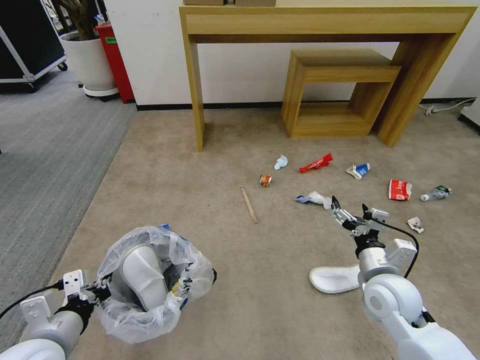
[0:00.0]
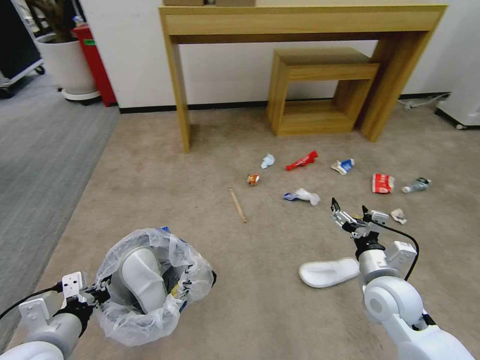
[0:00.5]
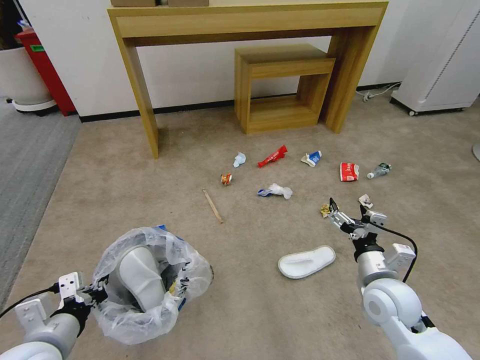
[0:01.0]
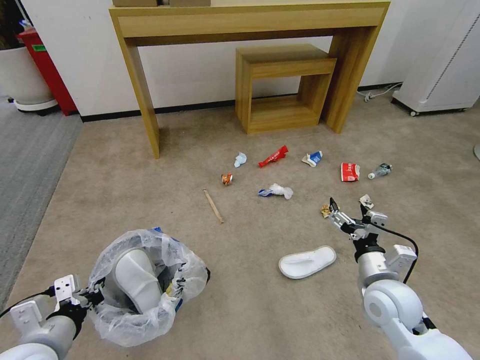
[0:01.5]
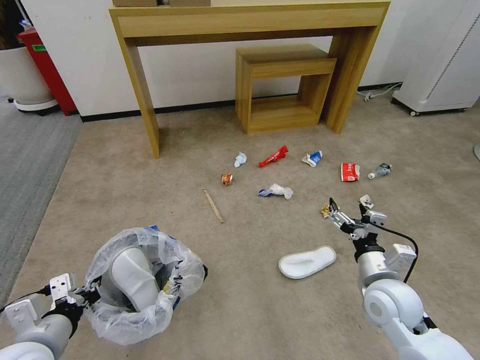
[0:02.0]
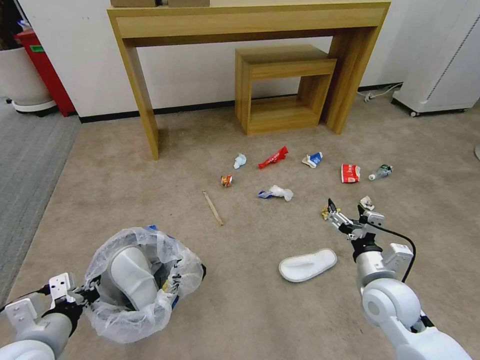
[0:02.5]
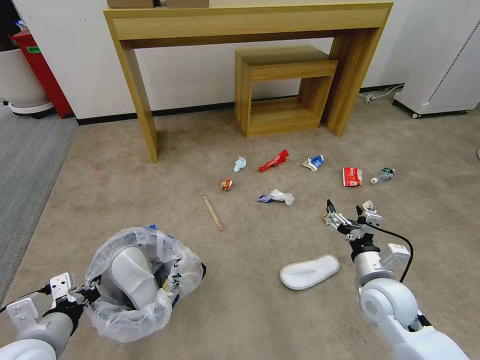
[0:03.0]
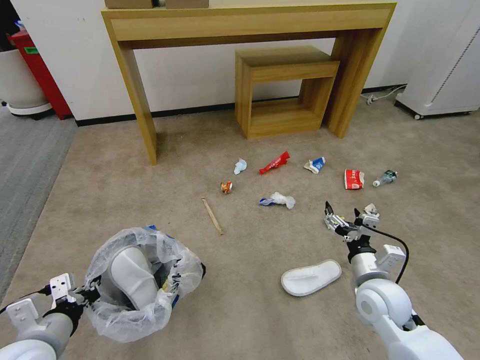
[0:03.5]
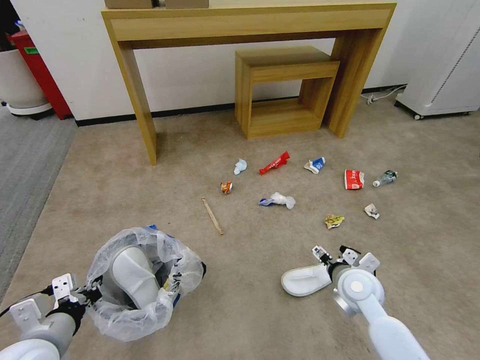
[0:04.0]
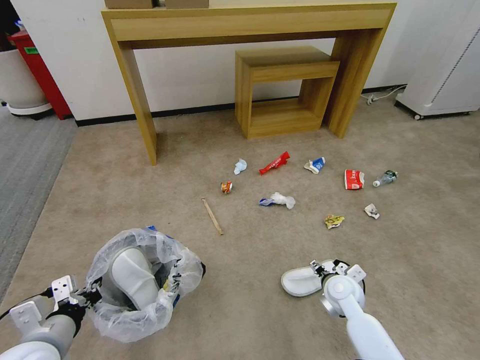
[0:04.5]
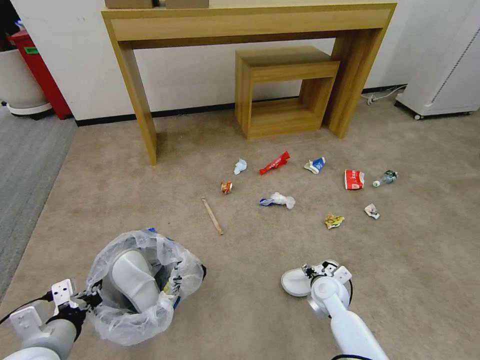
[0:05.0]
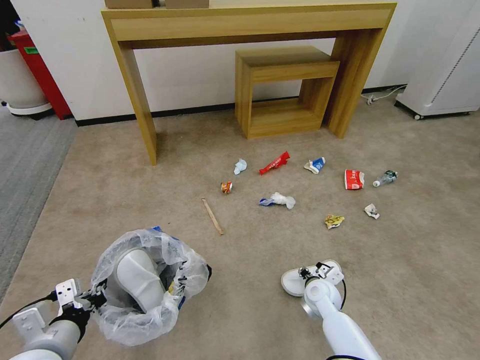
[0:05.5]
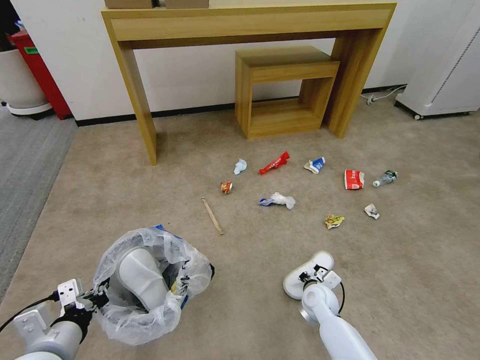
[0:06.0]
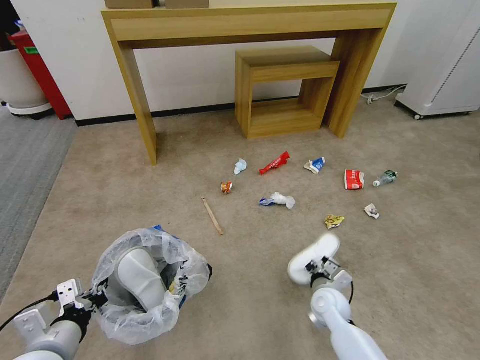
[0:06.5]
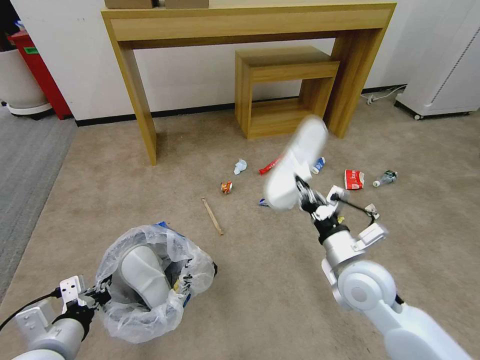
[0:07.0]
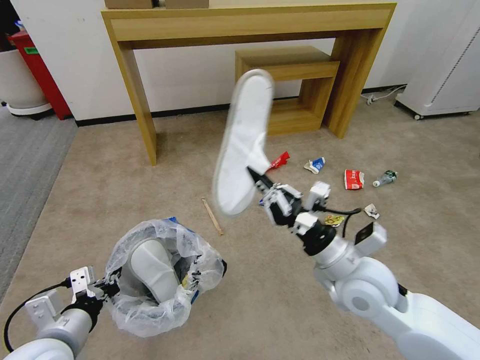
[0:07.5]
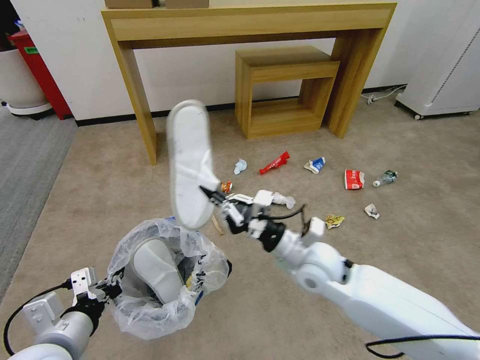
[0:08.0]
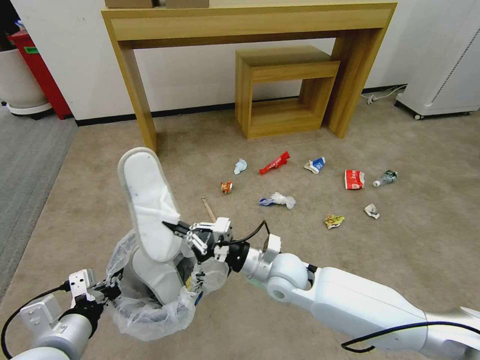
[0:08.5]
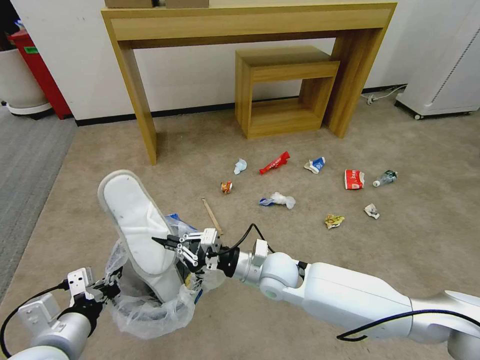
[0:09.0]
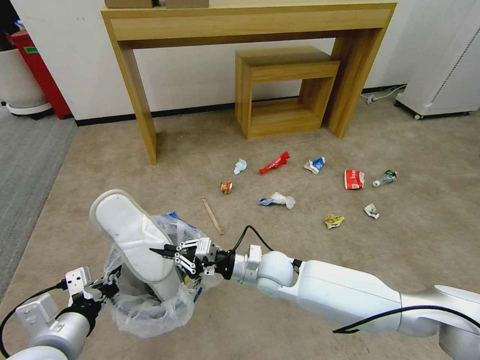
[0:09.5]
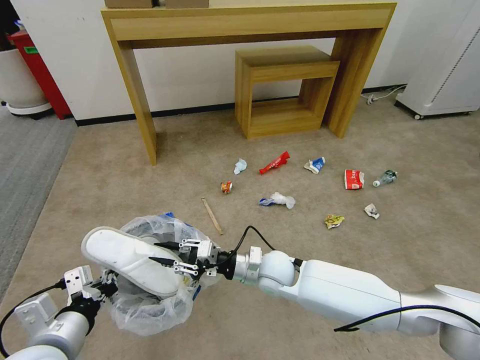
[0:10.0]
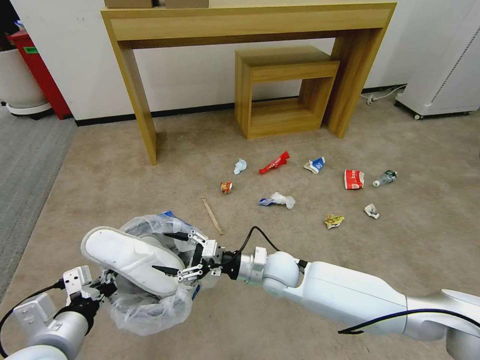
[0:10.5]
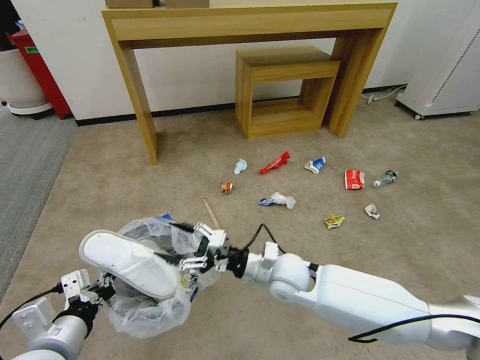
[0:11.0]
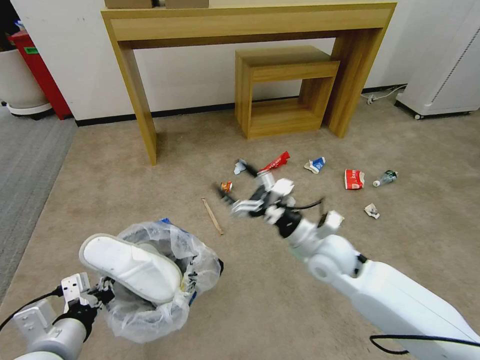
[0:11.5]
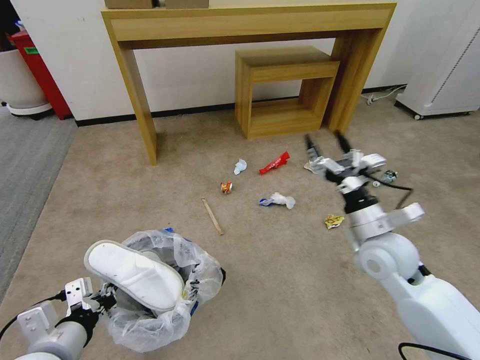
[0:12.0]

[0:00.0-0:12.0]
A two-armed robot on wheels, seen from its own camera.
Task of the whole recording: Pick up the trash bin and place the garbage on the floor into it.
0:02.0 to 0:04.0: The right gripper ends up some 5 cm from where it was.
0:04.0 to 0:06.0: The right gripper is displaced downward by roughly 15 cm, and closes up.
0:06.0 to 0:08.0: The right gripper travels upward by roughly 25 cm.
0:08.0 to 0:10.0: The right gripper heads downward and to the left, covering about 10 cm.
0:10.0 to 0:12.0: The right gripper heads to the right and upward, covering some 25 cm, and opens its fingers.

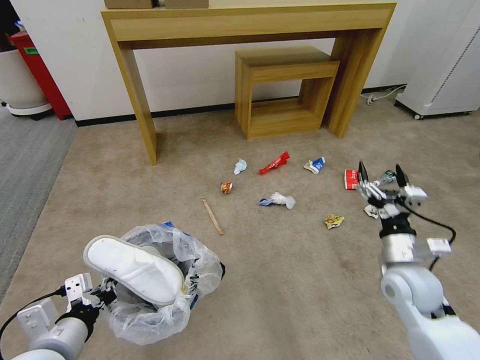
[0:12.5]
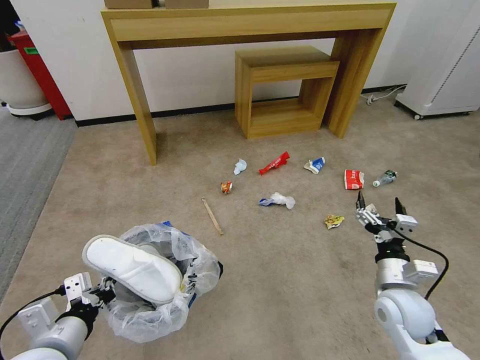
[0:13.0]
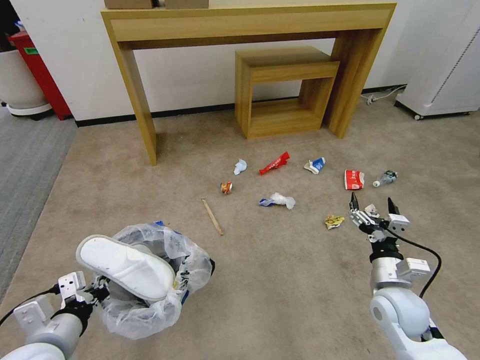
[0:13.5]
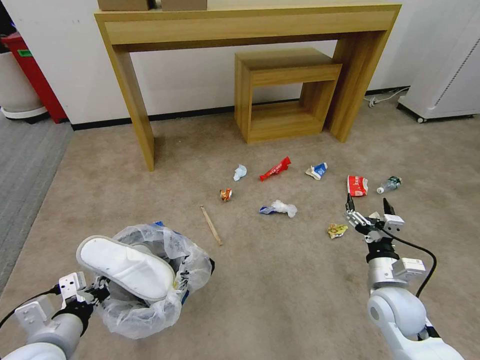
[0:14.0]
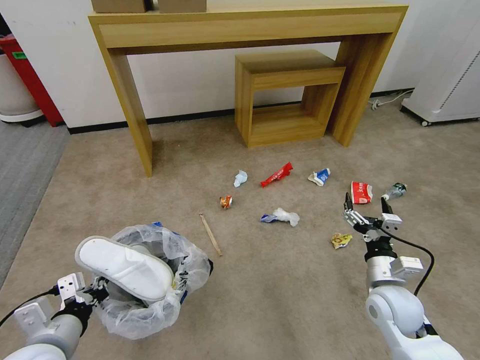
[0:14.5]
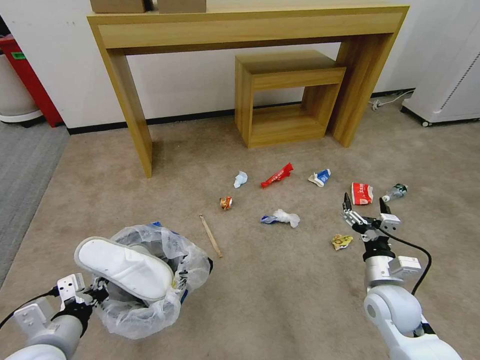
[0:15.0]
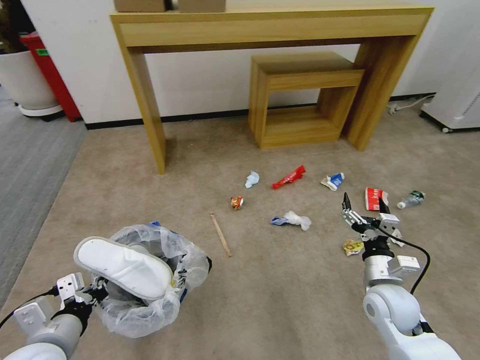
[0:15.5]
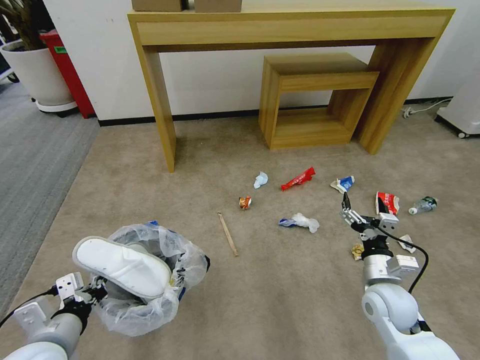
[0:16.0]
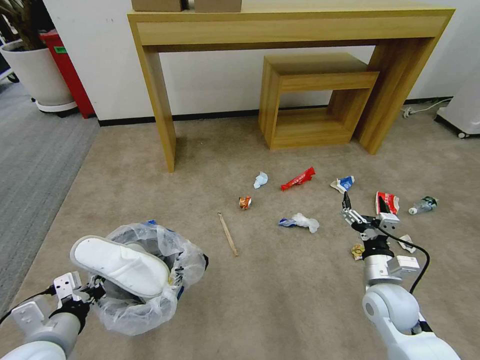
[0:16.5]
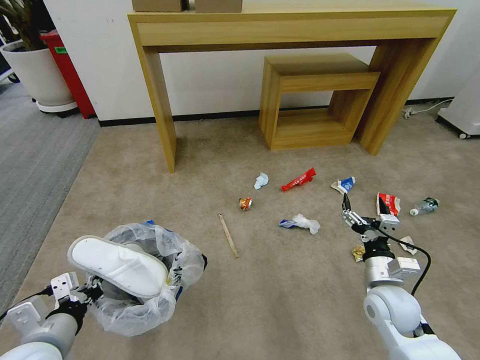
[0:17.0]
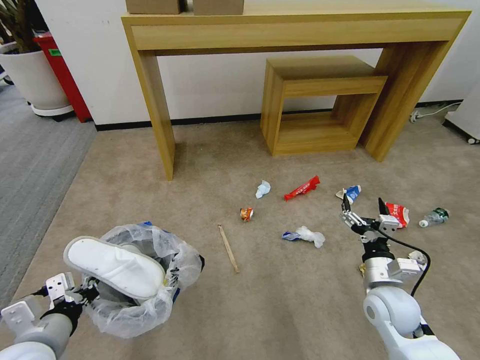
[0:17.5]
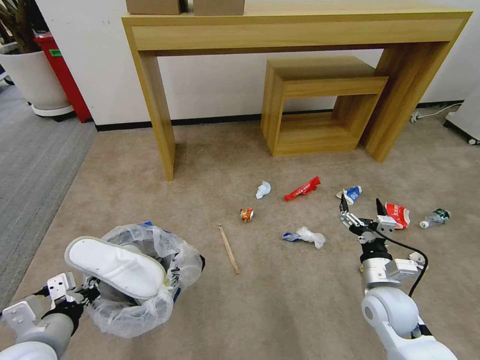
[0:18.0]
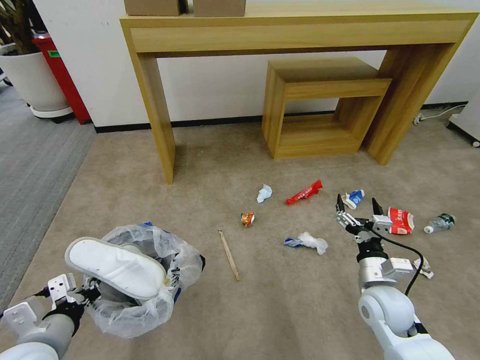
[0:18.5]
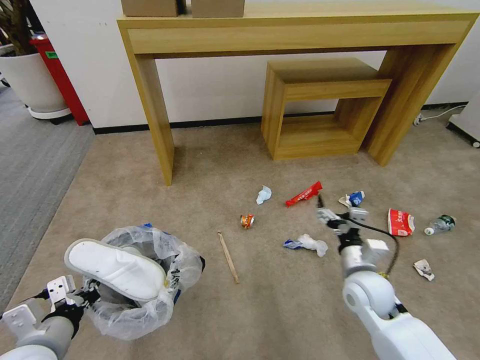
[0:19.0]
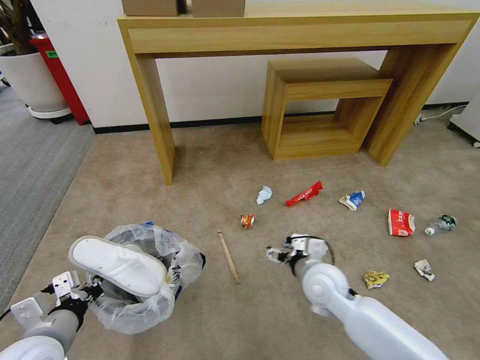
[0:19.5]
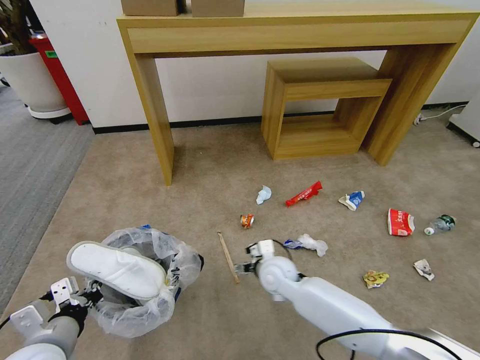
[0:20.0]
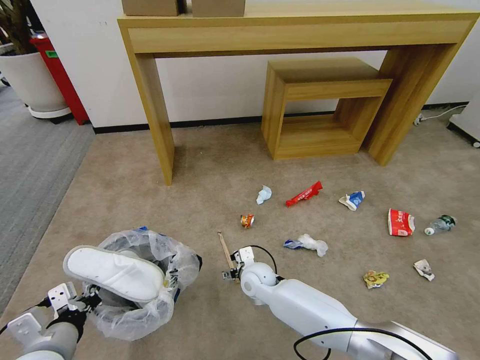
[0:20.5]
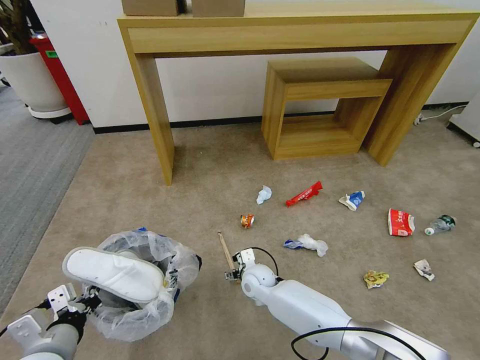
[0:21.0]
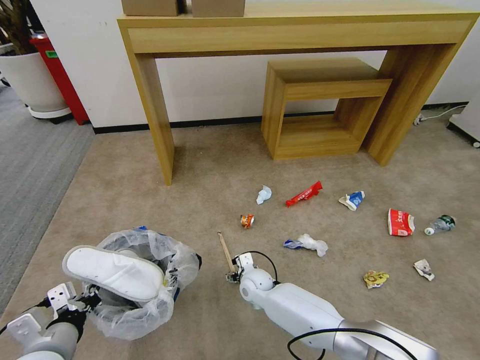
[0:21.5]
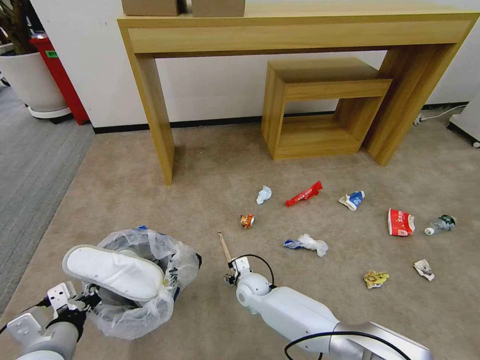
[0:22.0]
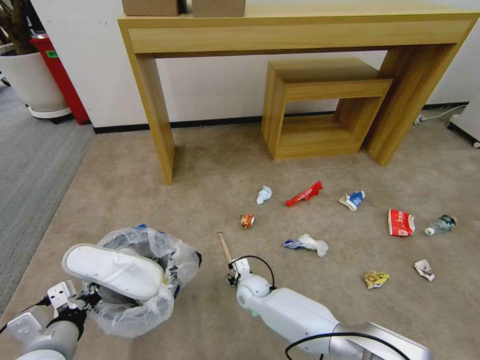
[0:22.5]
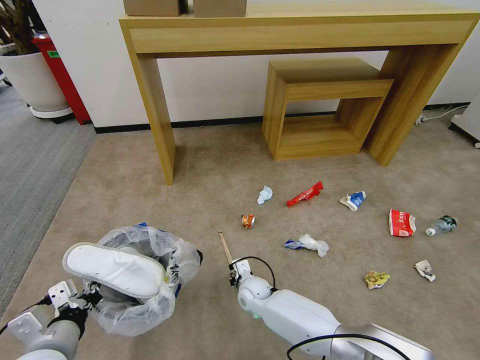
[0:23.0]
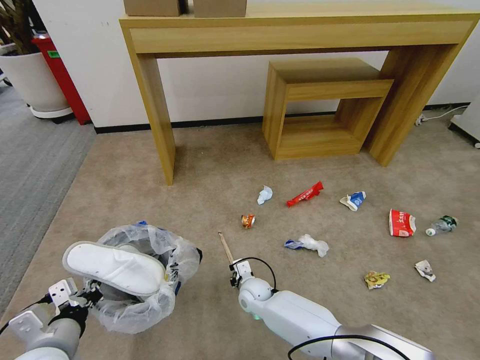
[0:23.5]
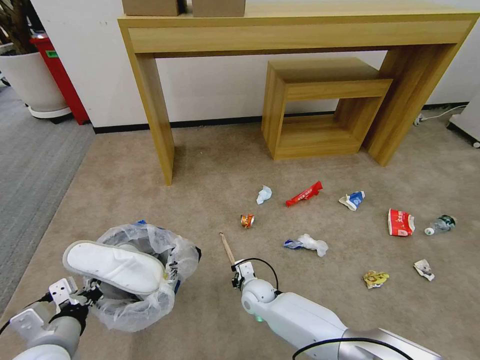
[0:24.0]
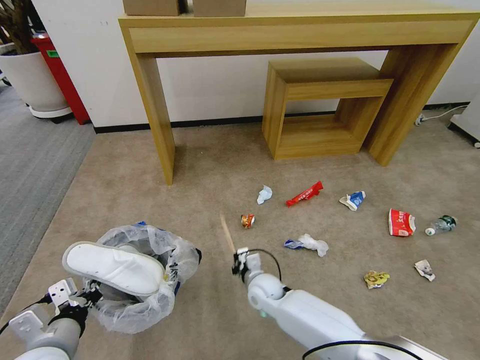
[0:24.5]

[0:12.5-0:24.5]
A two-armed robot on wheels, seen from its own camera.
Task of the whole recording: Pick up the trash bin and place the garbage on the floor into it.
0:12.5 to 0:14.5: The right gripper travels downward by about 5 cm.
0:18.5 to 0:20.5: The right gripper shifts about 25 cm to the left.
0:20.5 to 0:22.5: The right gripper heads downward, covering some 5 cm, and closes its fingers.
0:22.5 to 0:24.5: The right gripper closes up.

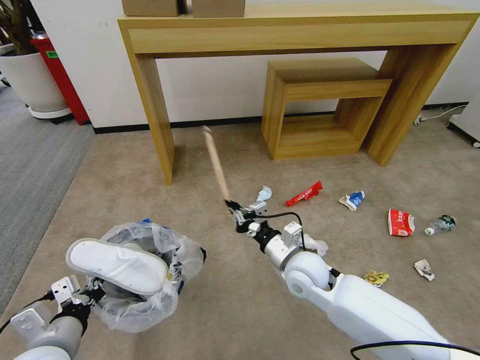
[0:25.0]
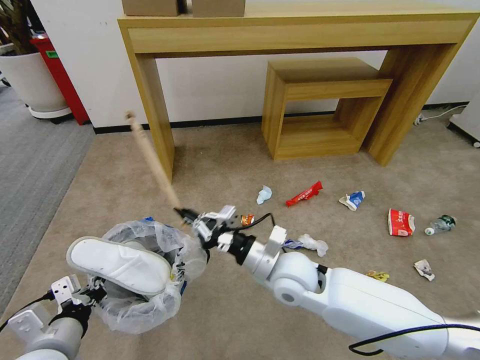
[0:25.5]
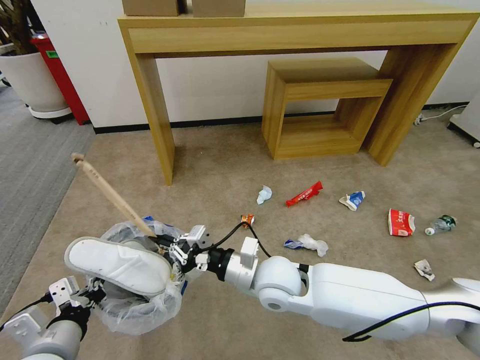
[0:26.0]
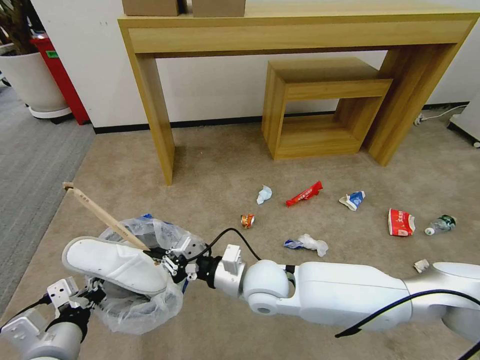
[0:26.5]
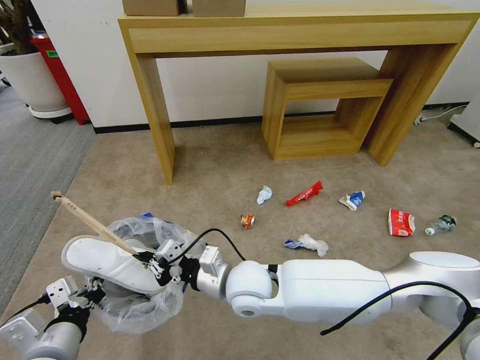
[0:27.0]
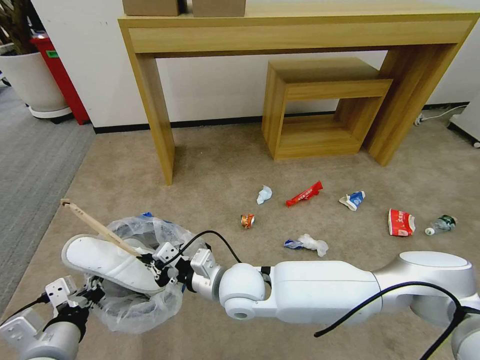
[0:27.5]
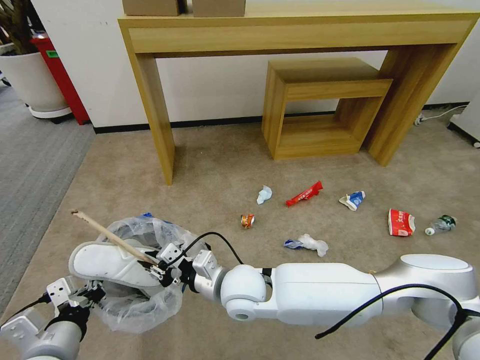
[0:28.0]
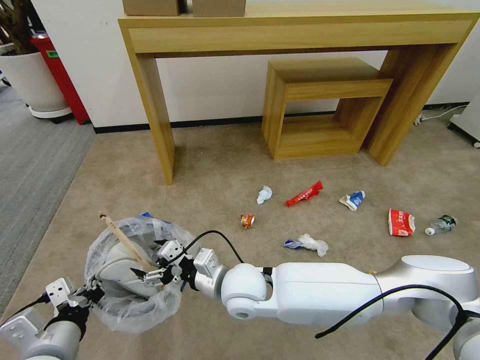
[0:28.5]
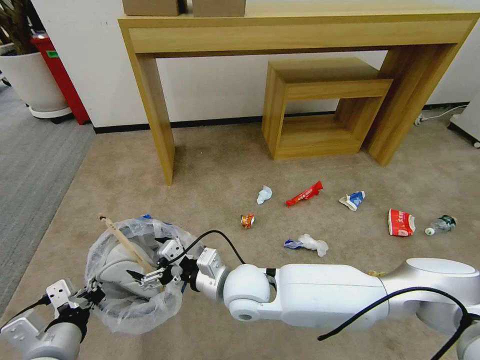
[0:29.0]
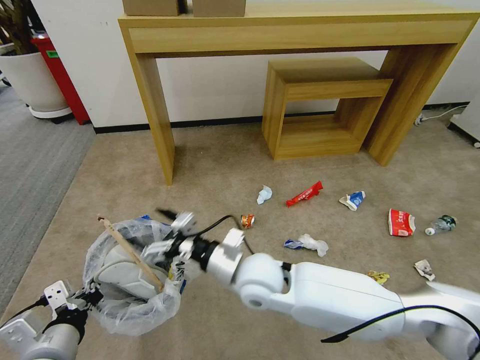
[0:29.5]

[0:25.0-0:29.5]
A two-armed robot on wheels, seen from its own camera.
Task of the whole recording: Pick up the trash bin and place the garbage on the floor into it.
0:25.0 to 0:27.0: The right gripper heads to the left, upward and backward, covering about 15 cm.
0:27.0 to 0:29.5: The right gripper opens up.
